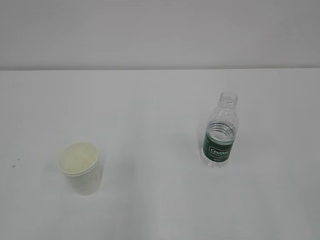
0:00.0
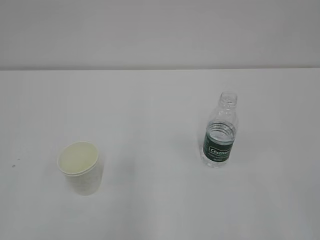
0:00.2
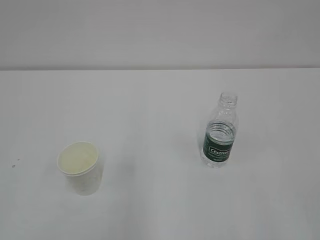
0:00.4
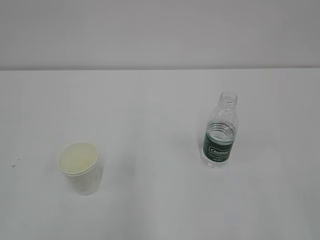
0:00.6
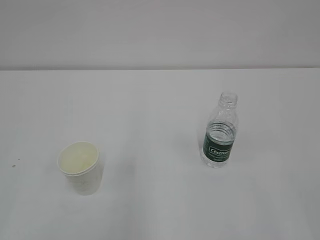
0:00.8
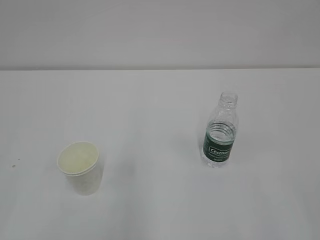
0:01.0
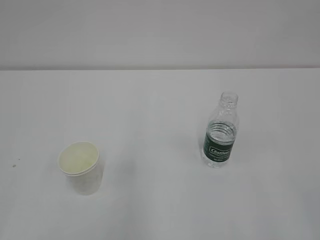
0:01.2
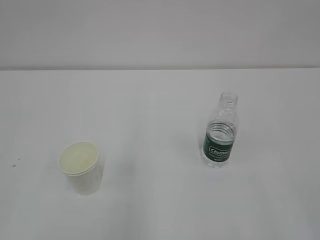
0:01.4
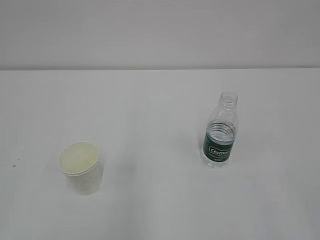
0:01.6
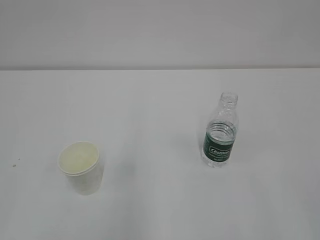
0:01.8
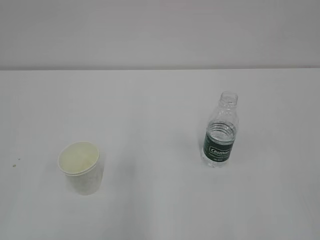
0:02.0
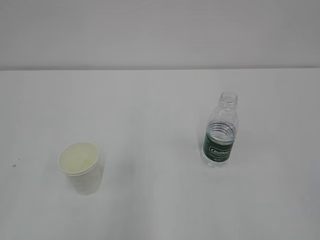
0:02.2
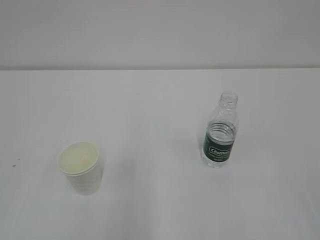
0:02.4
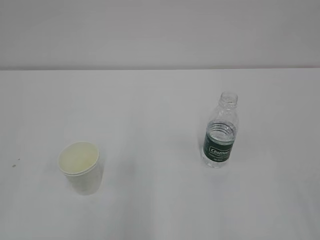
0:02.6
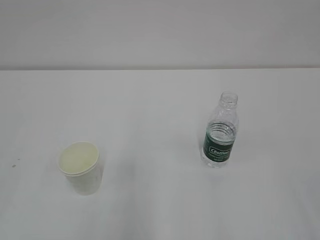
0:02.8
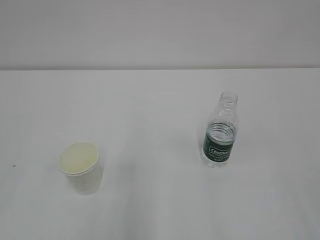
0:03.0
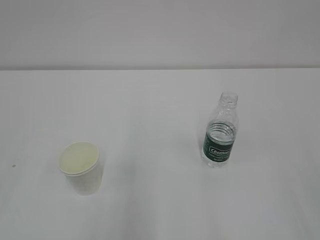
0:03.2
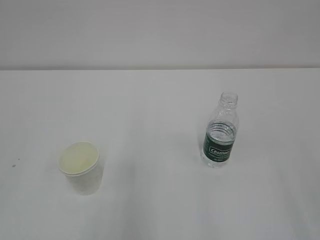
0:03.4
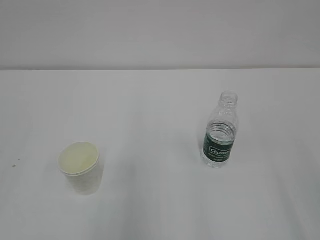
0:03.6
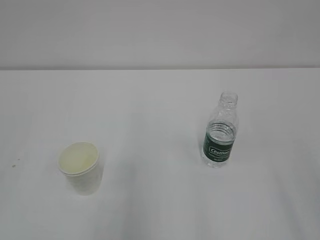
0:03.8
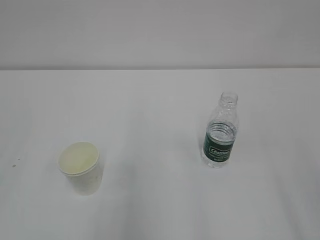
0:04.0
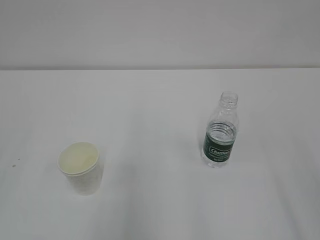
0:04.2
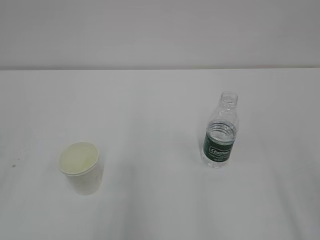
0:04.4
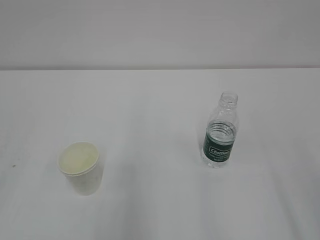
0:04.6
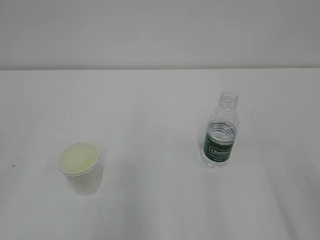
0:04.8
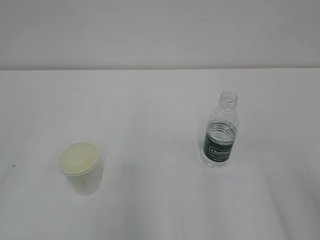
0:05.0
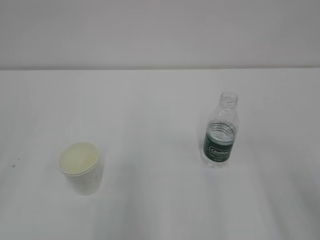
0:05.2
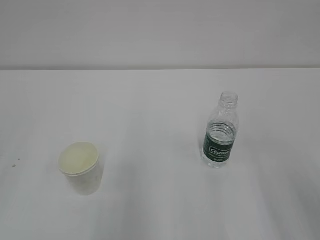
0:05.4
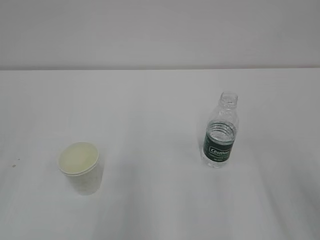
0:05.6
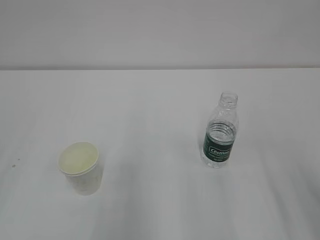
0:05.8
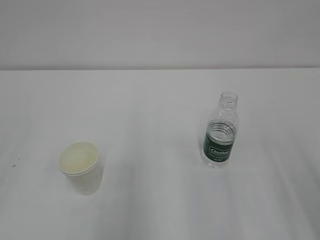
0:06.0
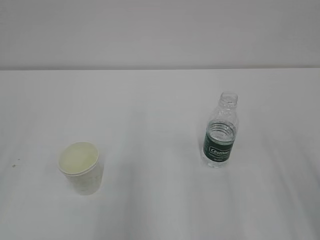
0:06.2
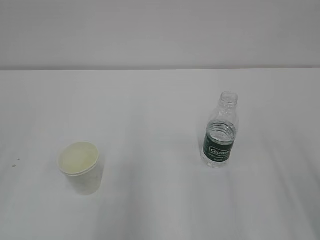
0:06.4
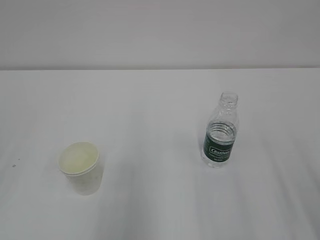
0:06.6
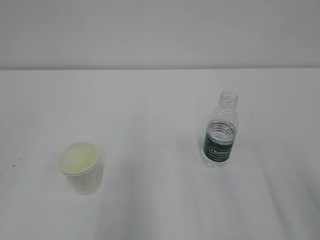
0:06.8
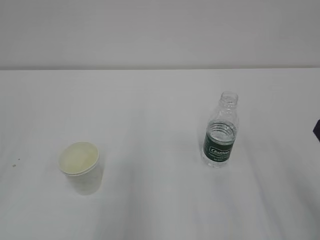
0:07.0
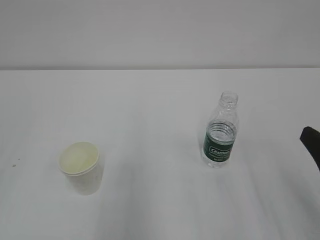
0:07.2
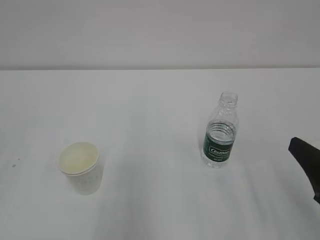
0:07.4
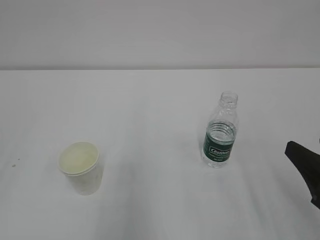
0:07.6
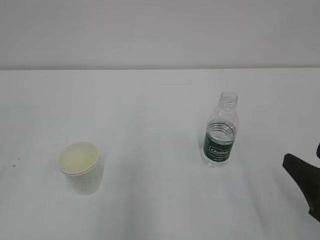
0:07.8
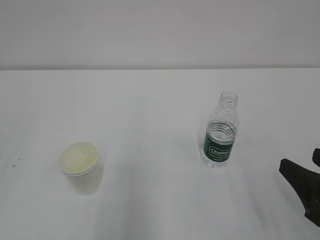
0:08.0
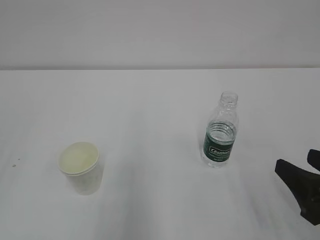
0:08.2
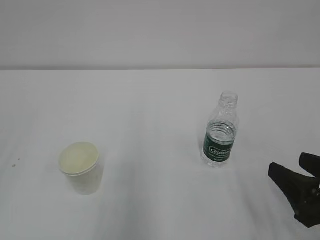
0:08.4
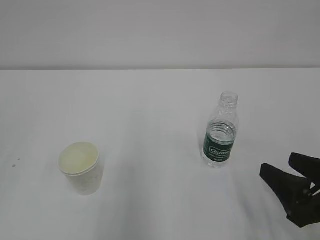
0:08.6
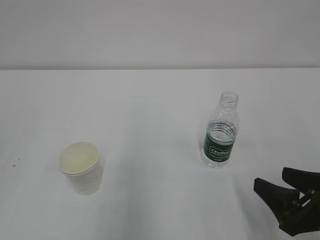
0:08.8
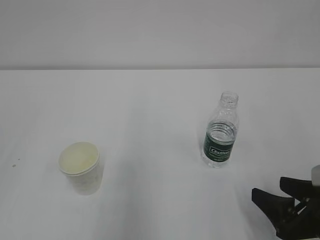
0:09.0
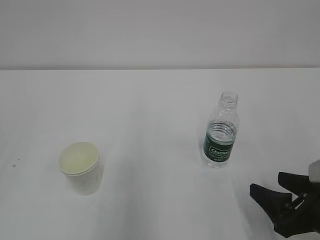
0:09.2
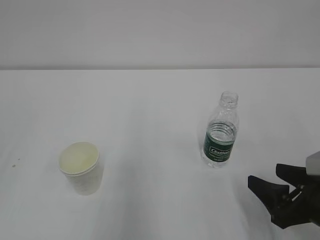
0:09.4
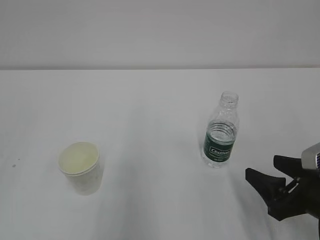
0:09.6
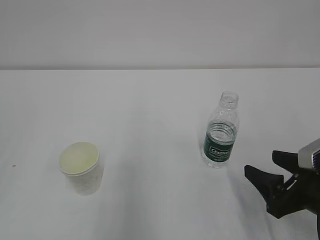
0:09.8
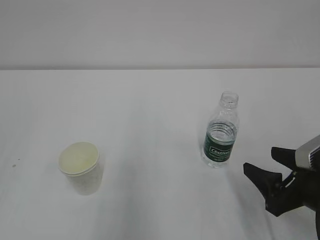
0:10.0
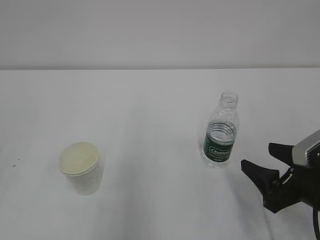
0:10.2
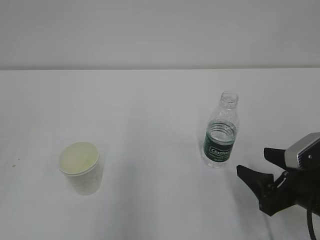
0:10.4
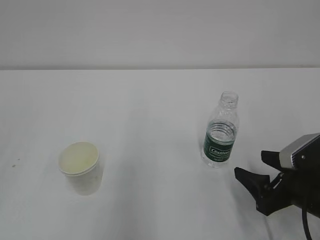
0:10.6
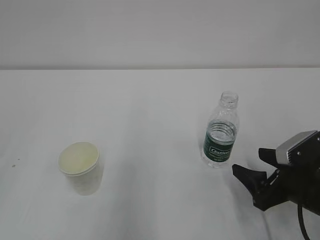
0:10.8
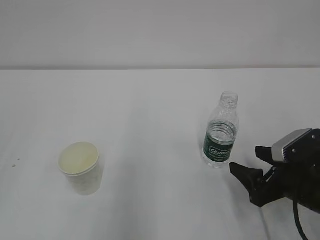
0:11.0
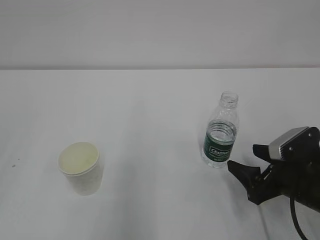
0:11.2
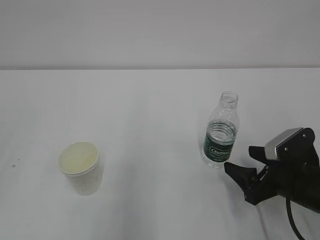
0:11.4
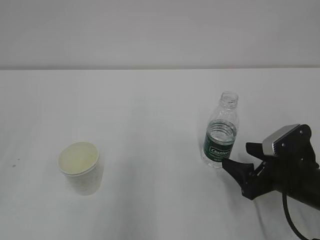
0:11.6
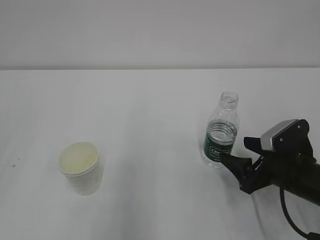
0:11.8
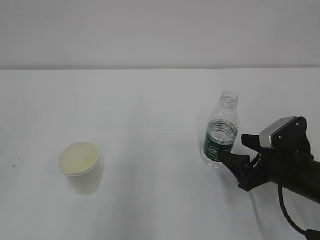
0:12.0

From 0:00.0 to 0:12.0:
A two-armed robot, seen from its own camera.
From 0:06.0 to 0:07.6: The right gripper moves downward, about 5 cm.
From 0:07.6 to 0:09.0: The right gripper moves downward, some 10 cm.
From 0:09.0 to 0:10.4: The grippers stay close to where they were, moving slightly.
From 0:10.4 to 0:12.0: The right gripper moves forward, approximately 5 cm.

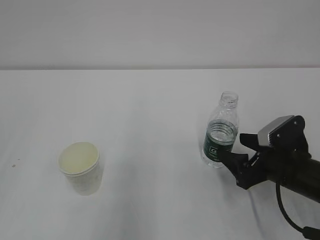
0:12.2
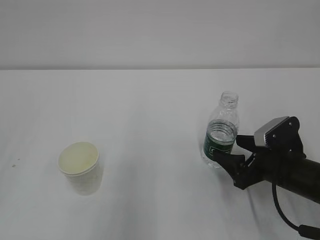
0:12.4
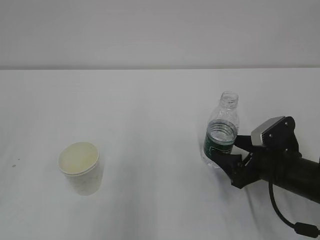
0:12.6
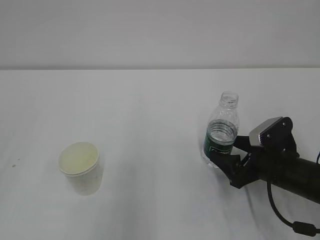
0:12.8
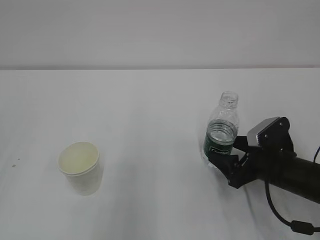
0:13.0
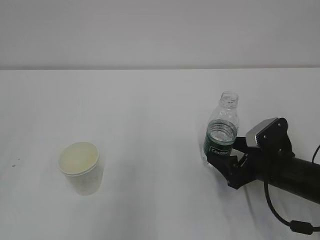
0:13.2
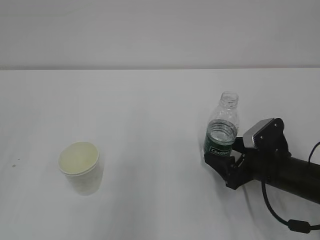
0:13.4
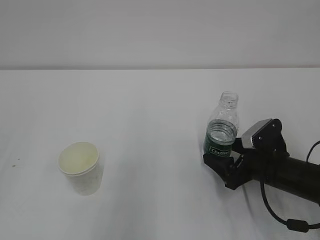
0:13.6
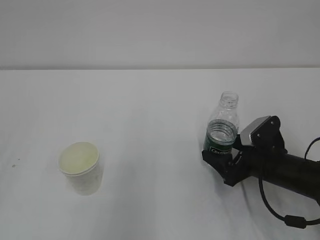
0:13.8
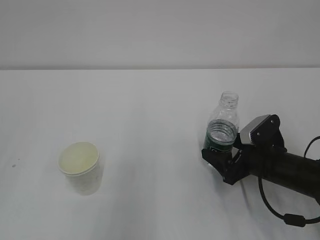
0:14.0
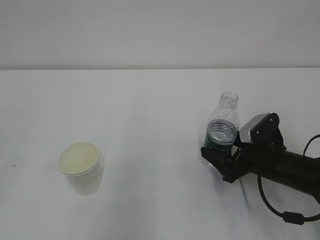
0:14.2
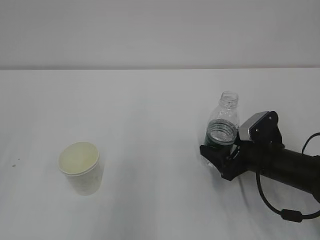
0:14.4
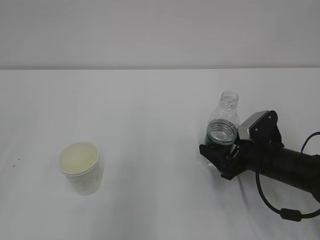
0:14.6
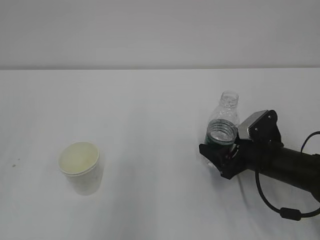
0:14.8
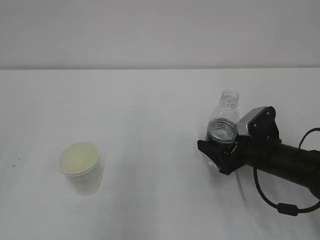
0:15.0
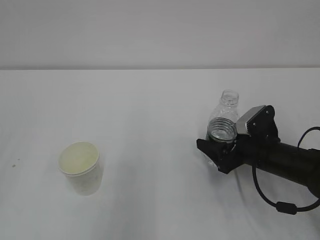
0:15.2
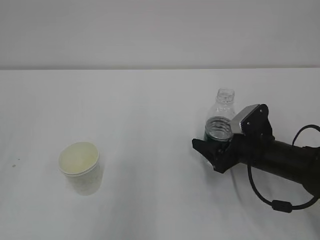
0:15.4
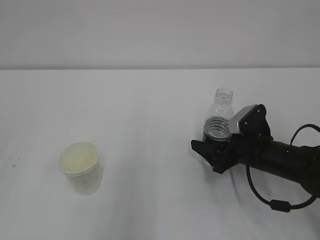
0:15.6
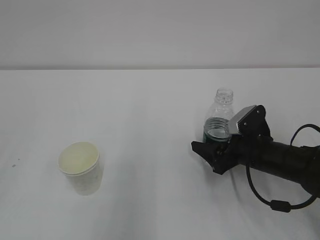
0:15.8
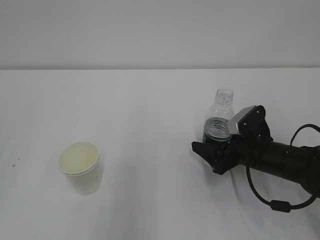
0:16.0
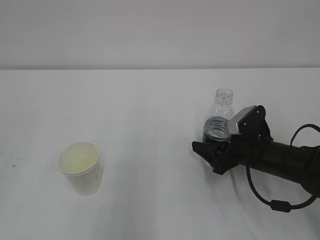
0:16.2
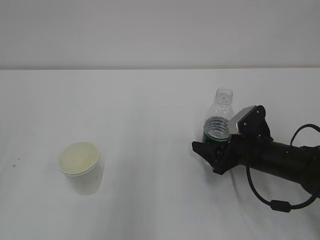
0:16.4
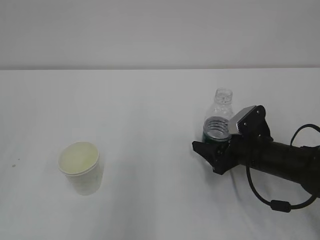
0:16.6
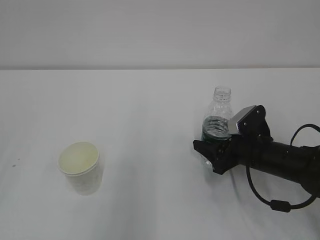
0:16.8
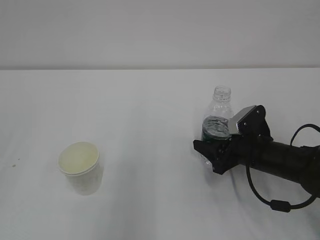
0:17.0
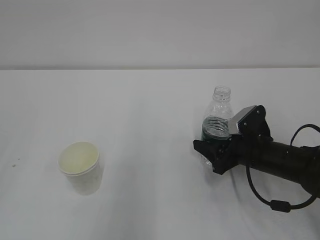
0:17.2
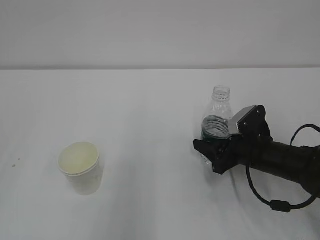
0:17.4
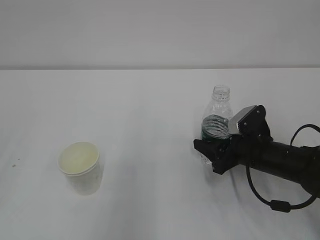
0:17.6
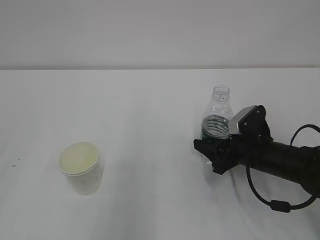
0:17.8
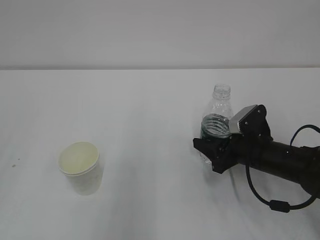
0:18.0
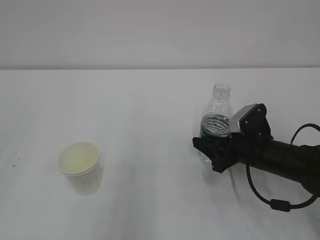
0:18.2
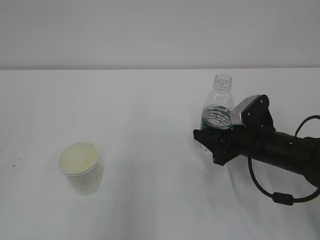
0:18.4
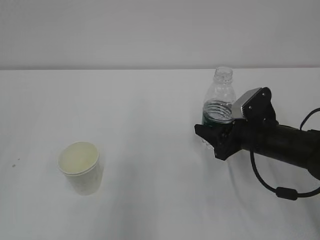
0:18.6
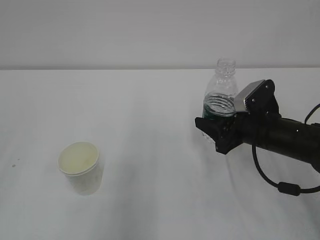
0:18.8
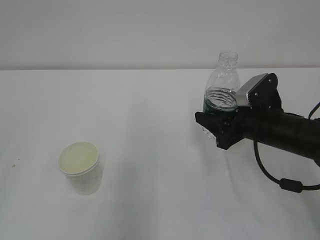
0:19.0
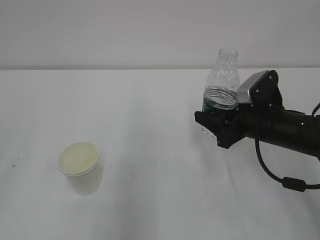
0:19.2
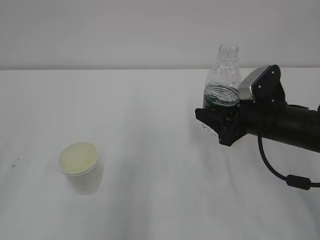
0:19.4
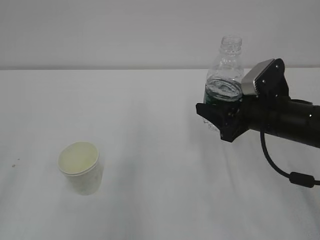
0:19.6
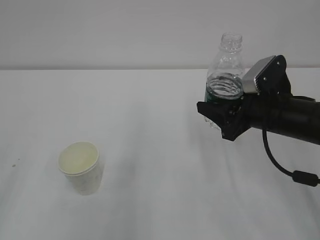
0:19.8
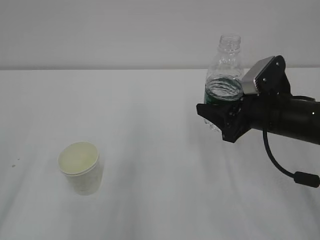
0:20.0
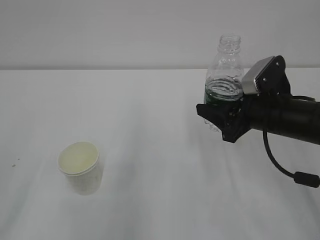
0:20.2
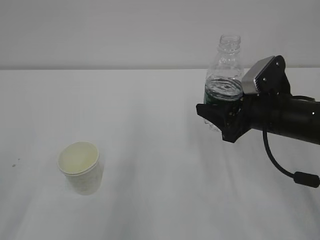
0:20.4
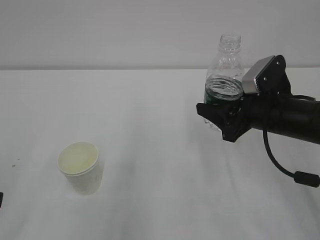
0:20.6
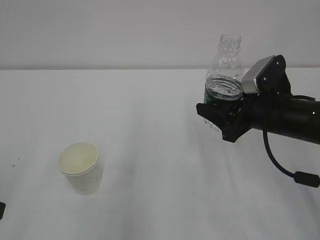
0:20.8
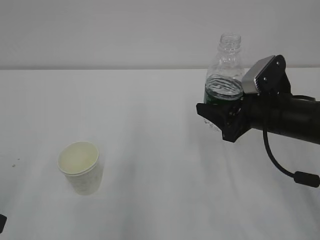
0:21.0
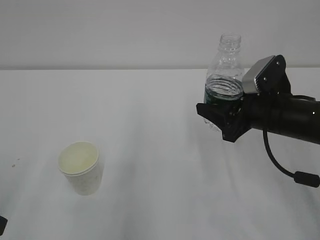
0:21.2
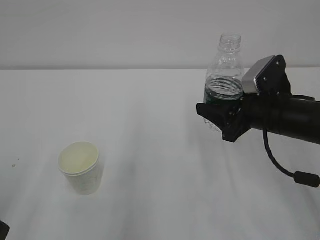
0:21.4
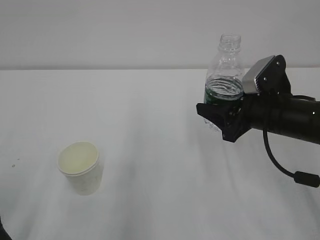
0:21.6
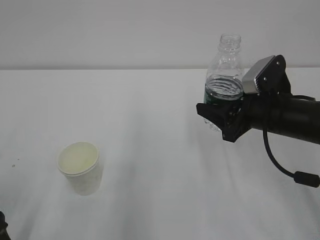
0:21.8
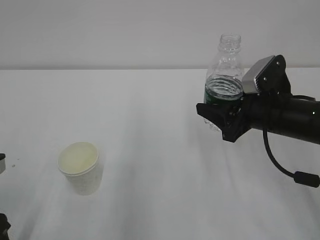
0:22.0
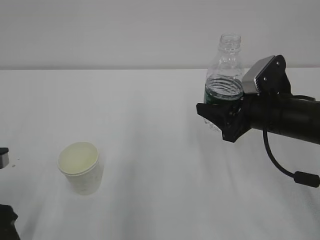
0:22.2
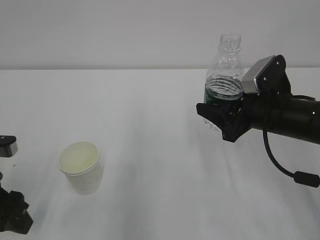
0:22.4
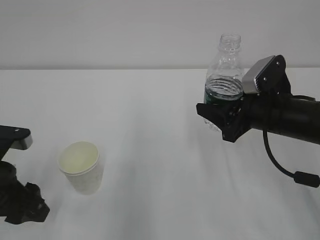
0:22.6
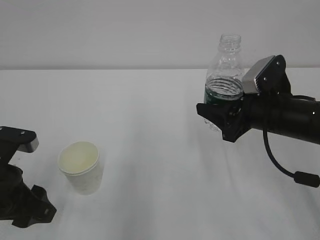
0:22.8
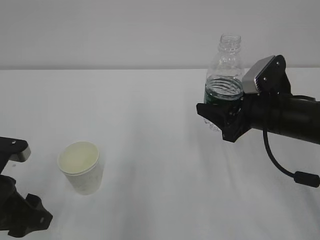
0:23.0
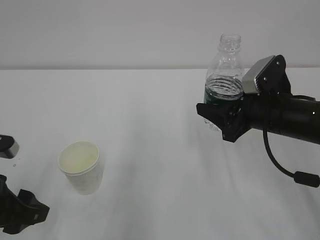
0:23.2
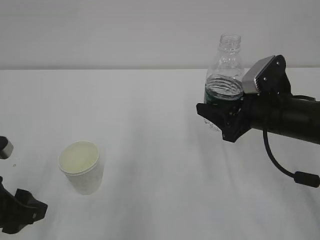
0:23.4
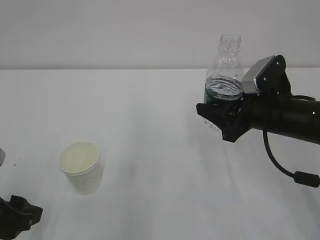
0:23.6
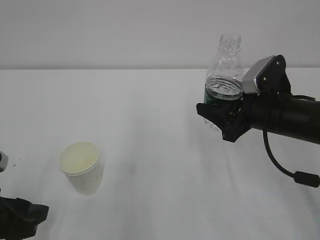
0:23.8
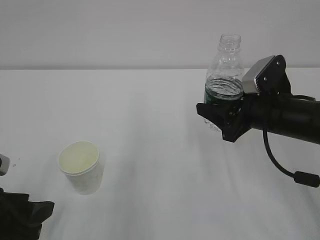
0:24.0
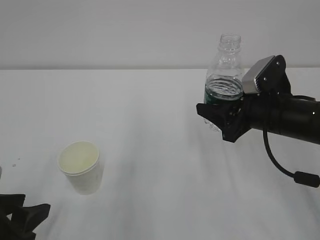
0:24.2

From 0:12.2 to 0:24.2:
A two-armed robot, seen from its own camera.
From 0:12.2 to 0:15.2: The grippers move only a little.
From 0:15.2 to 0:16.6: The two grippers keep their place.
From 0:16.6 to 0:18.2: The right gripper closes its fingers.
From 0:18.2 to 0:19.8: The left gripper shifts some 5 cm downward. Meanwhile the right gripper is displaced upward by some 10 cm.
From 0:21.2 to 0:22.6: The left gripper travels forward by about 5 cm, and closes up.
From 0:22.6 to 0:24.2: The left gripper is displaced backward by roughly 5 cm.
